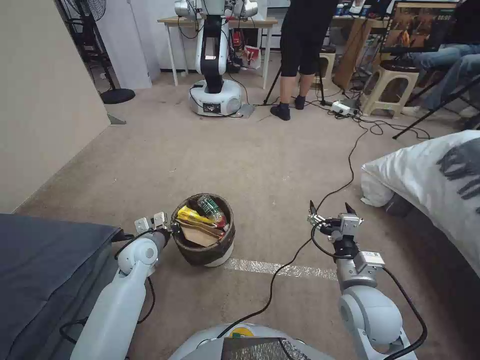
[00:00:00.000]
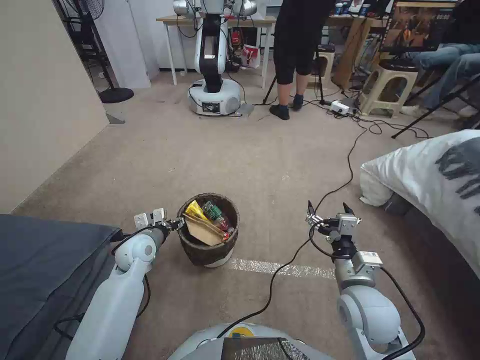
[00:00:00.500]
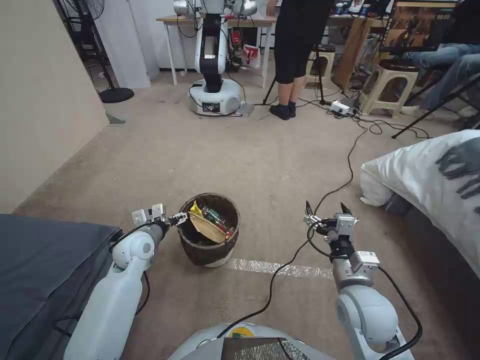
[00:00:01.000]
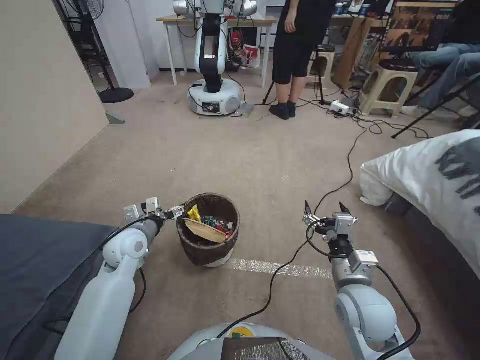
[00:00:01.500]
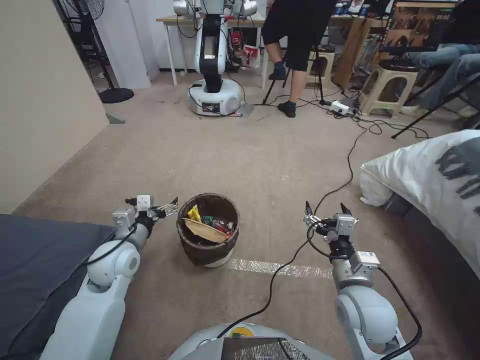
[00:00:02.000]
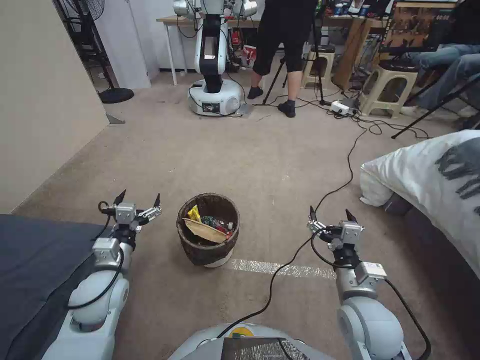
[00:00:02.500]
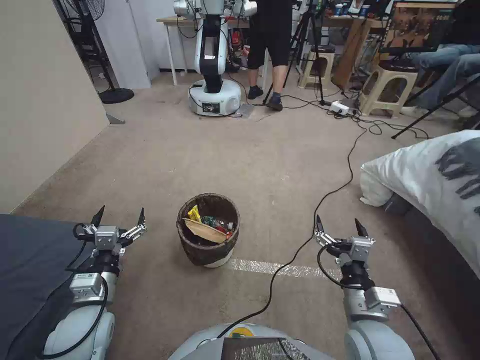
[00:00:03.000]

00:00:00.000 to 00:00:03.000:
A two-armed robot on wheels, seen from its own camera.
Task of the whole recording: Pick up the trash bin, then pick up the garbage from the floor and place it into the trash bin.
00:00:00.000 to 00:00:01.500: The left gripper moves upward, some 5 cm, and opens.
00:00:01.500 to 00:00:03.000: The left gripper moves backward, roughly 15 cm. The right gripper goes about 5 cm backward.
